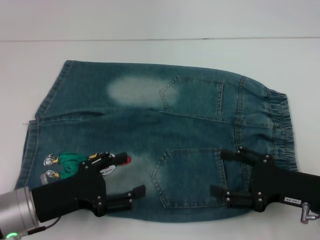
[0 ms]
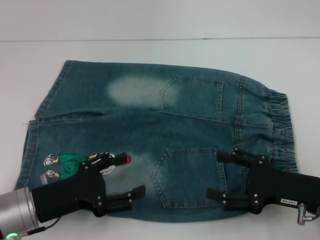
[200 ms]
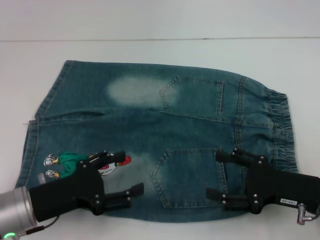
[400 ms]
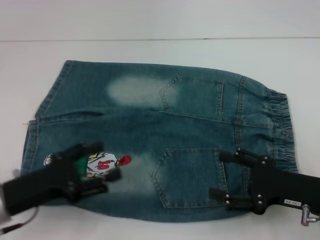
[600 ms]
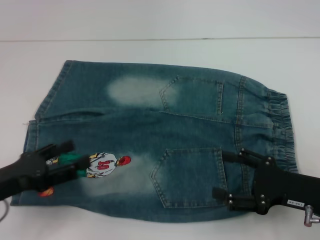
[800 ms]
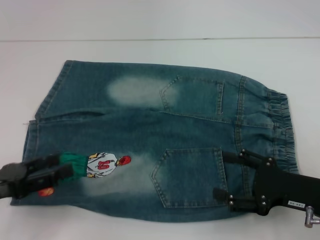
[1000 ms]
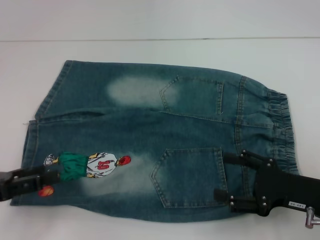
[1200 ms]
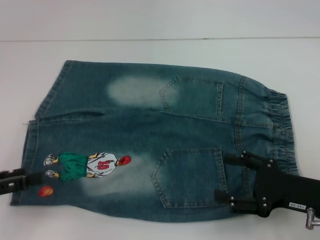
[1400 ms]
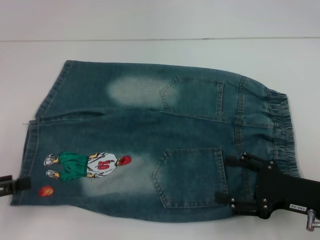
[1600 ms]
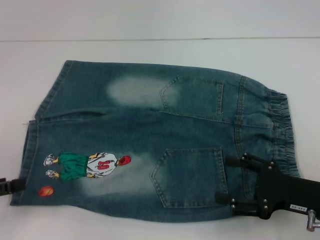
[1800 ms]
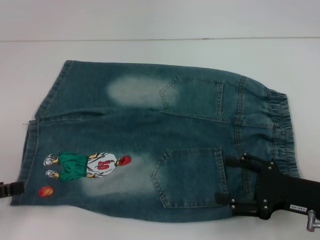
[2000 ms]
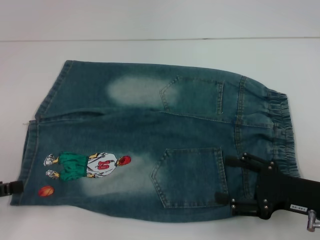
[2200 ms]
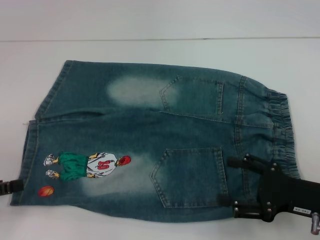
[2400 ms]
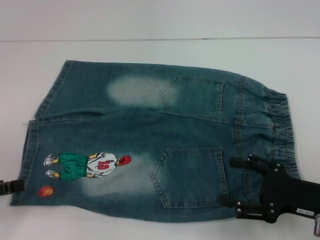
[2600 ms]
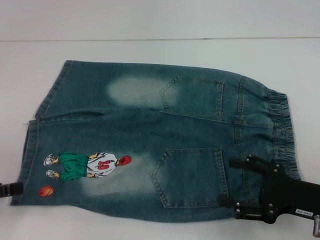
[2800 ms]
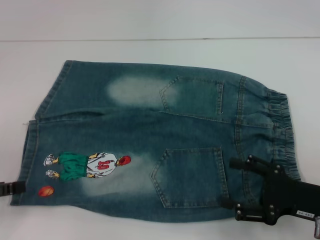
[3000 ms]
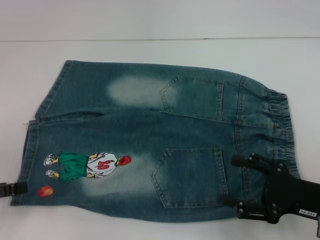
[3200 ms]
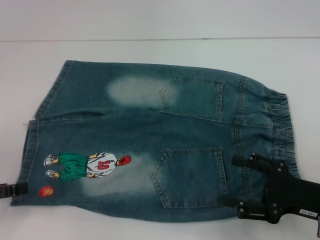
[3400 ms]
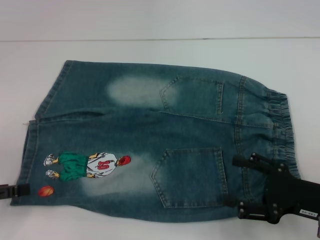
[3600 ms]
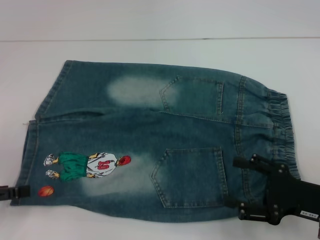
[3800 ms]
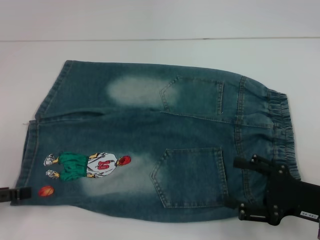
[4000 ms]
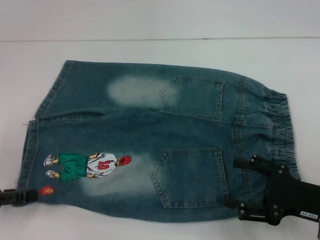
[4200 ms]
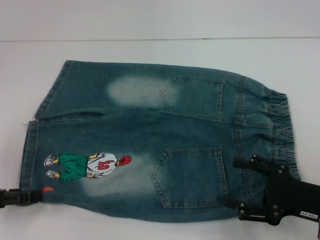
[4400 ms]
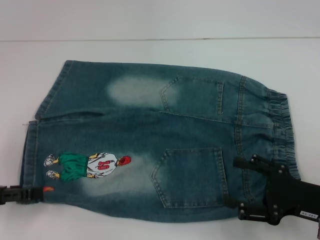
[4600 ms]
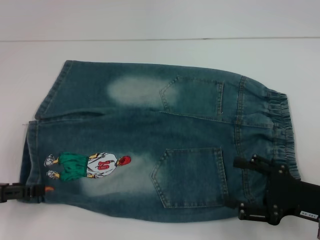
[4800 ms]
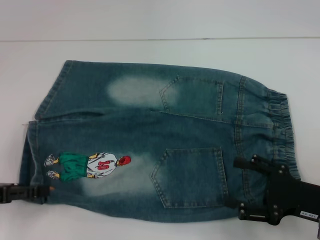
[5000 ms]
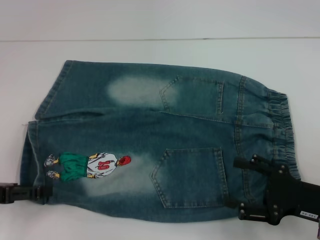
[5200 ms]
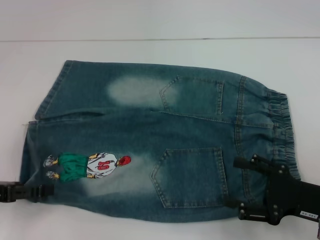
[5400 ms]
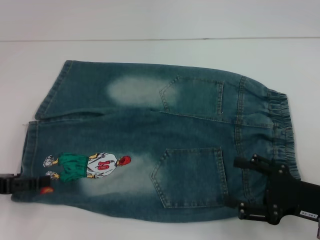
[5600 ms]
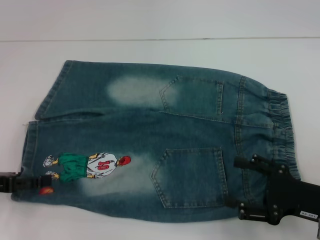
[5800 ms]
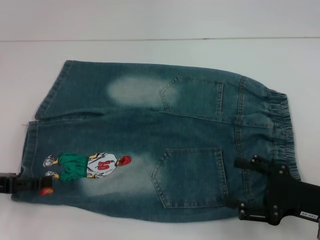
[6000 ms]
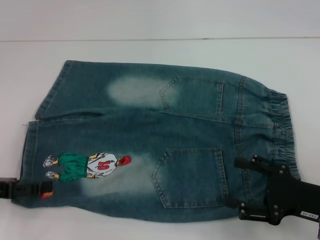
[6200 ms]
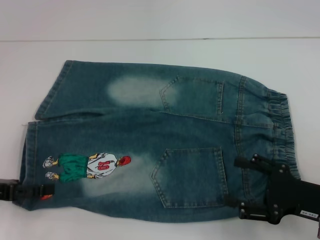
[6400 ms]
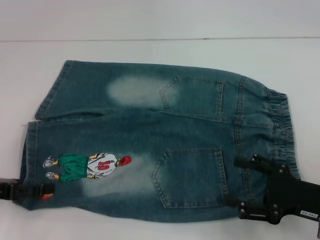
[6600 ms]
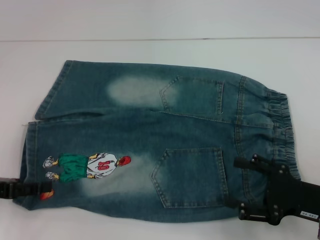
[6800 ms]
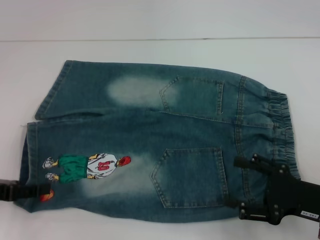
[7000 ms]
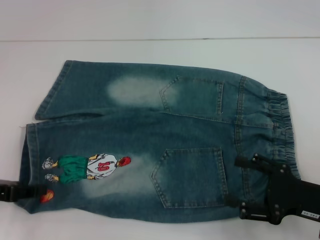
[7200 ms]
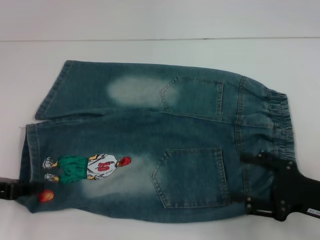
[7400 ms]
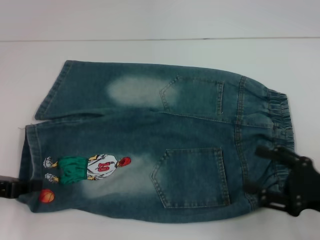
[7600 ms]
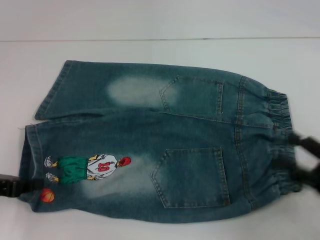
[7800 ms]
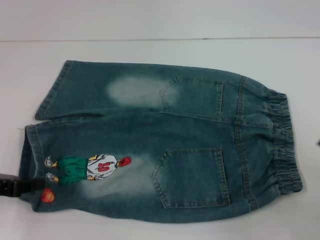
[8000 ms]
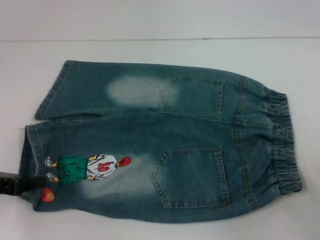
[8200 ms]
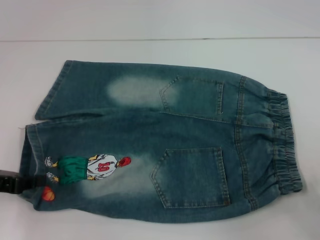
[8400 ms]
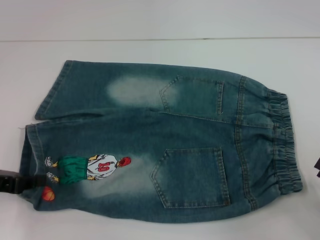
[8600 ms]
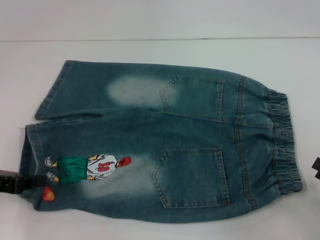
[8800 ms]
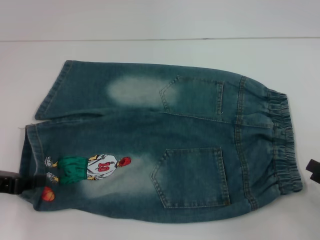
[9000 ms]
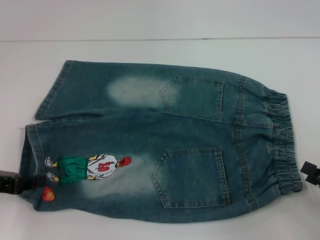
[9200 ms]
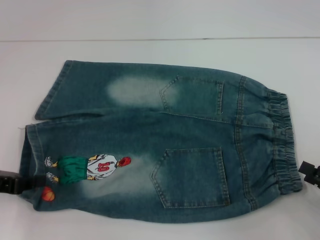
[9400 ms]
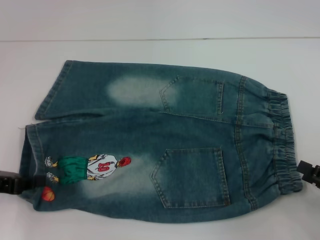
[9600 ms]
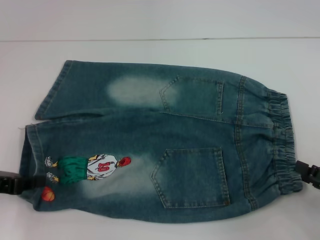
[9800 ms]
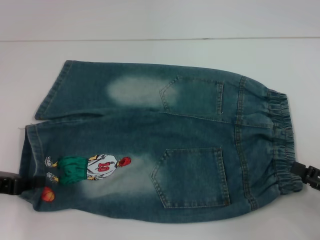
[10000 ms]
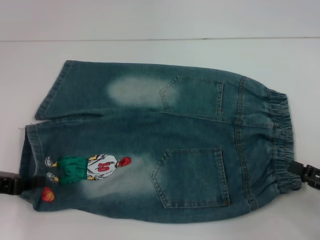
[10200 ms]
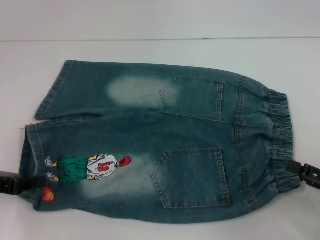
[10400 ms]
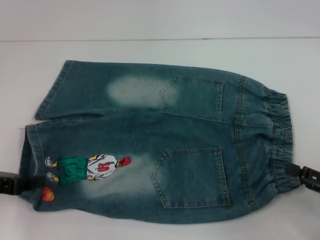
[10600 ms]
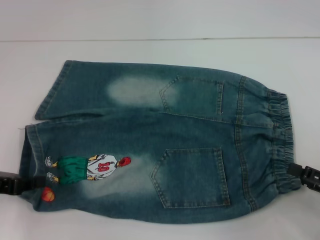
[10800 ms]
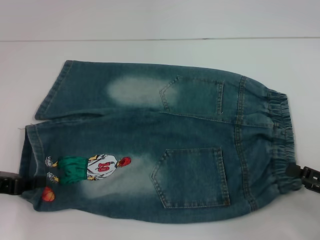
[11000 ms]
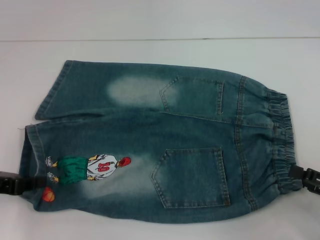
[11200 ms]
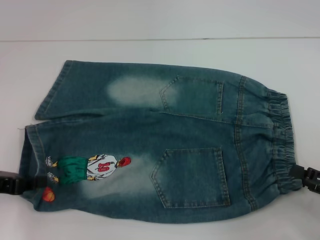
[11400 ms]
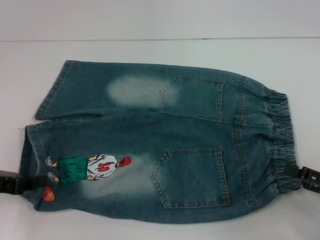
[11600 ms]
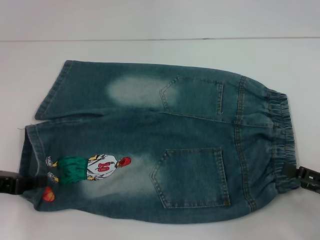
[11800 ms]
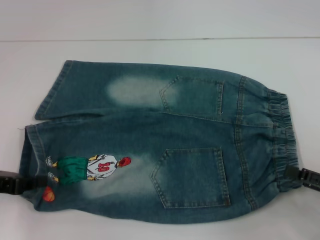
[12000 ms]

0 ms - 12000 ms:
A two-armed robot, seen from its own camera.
Step, 0 ms - 8000 ms: Grab the lower left pant leg with your left hand.
0 ms - 1600 ms: The left gripper goes approximately 15 cm to the left and upward.
1600 ms - 6000 ms: The grippers make only small movements.
6000 ms - 7600 ms: The left gripper closes its fingers.
7600 ms - 9000 ms: The right gripper is displaced to the right by some 10 cm.
9000 ms - 10400 ms: The grippers stay close to where they were, moving slightly.
10400 ms - 12000 ms: Both grippers stay put.

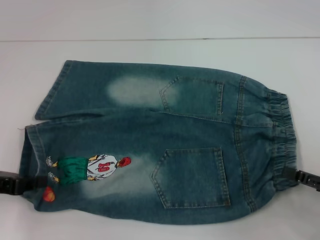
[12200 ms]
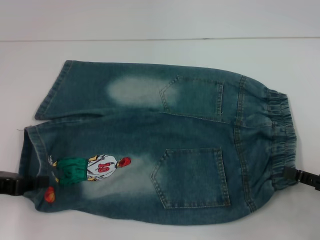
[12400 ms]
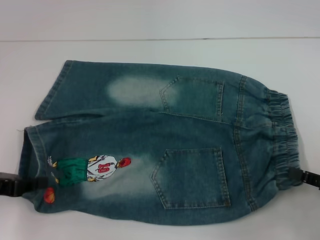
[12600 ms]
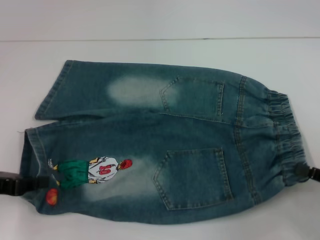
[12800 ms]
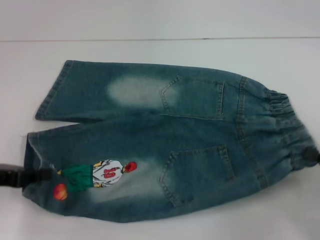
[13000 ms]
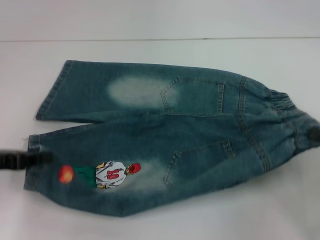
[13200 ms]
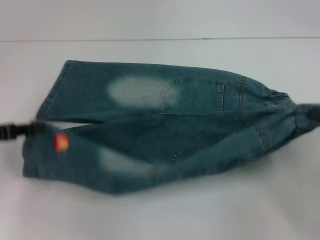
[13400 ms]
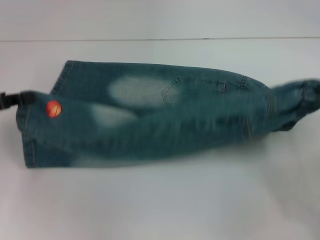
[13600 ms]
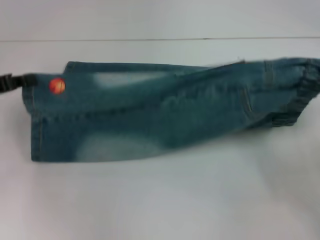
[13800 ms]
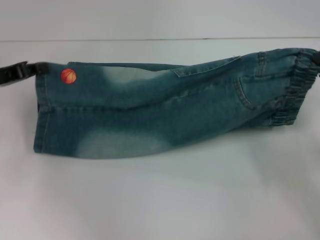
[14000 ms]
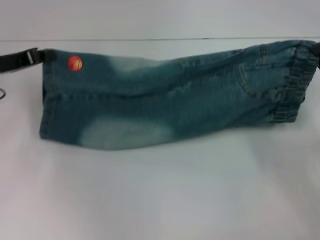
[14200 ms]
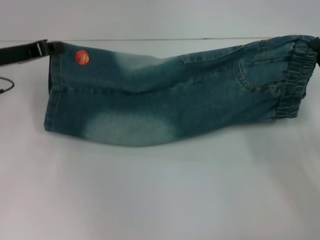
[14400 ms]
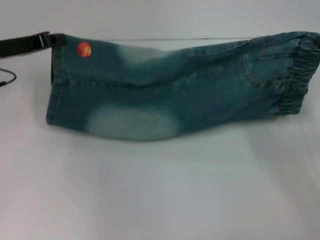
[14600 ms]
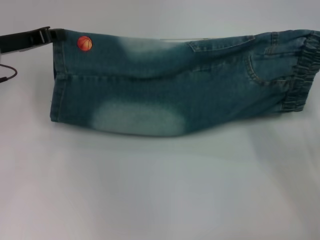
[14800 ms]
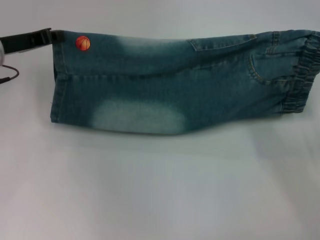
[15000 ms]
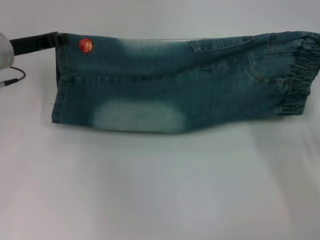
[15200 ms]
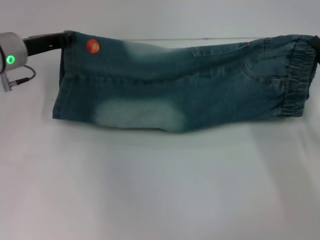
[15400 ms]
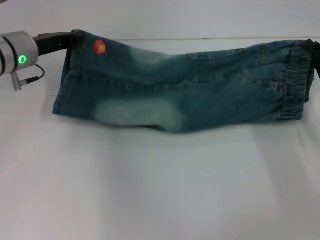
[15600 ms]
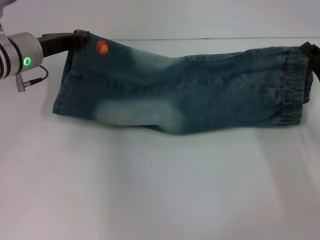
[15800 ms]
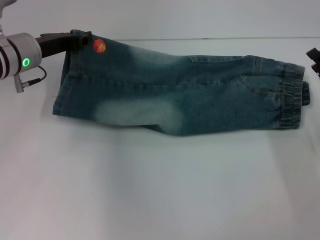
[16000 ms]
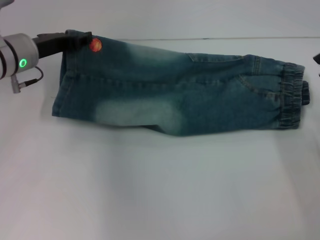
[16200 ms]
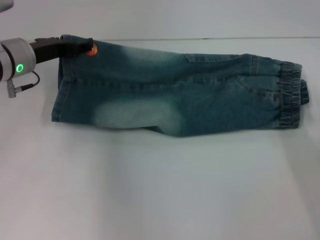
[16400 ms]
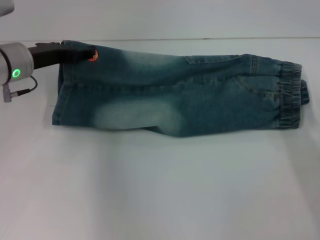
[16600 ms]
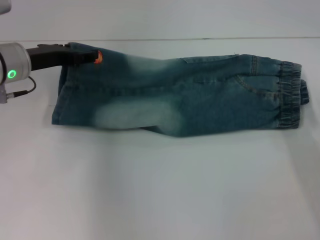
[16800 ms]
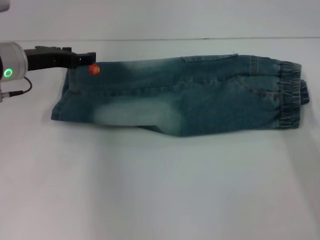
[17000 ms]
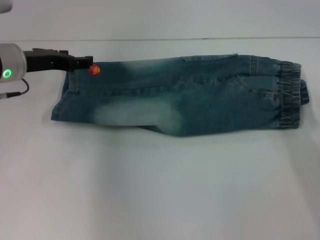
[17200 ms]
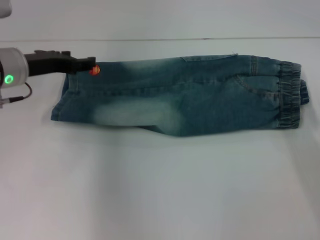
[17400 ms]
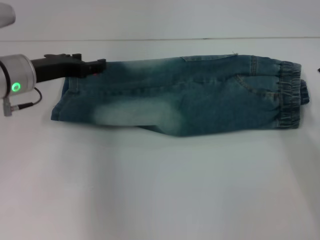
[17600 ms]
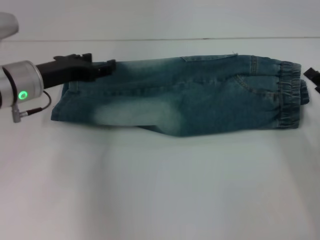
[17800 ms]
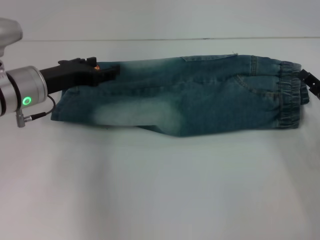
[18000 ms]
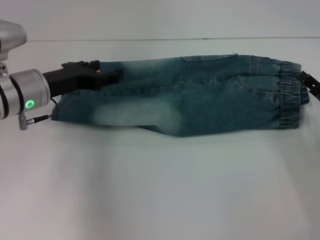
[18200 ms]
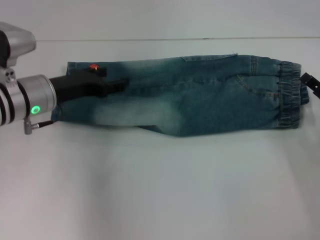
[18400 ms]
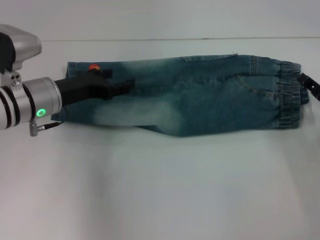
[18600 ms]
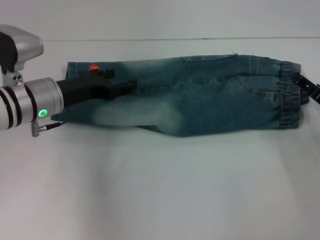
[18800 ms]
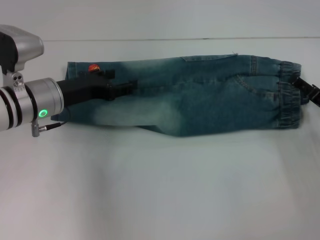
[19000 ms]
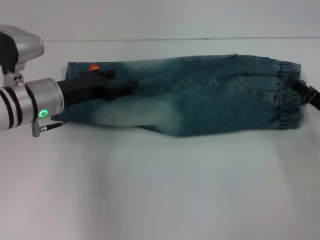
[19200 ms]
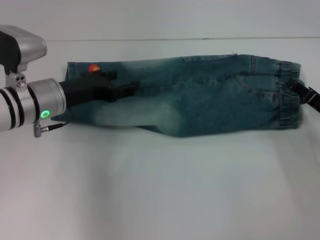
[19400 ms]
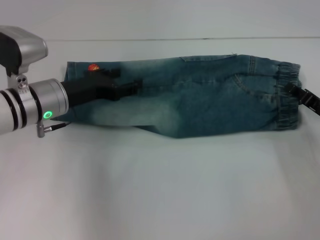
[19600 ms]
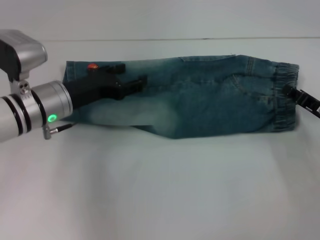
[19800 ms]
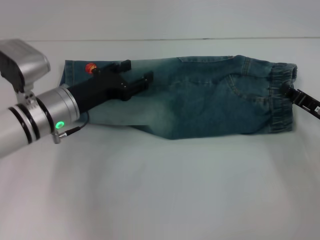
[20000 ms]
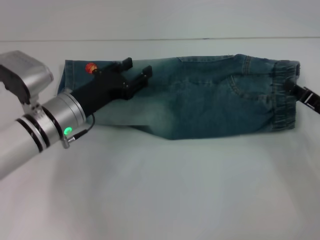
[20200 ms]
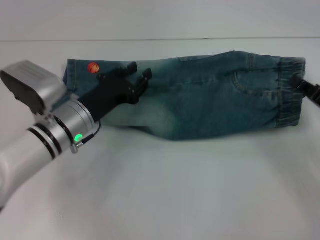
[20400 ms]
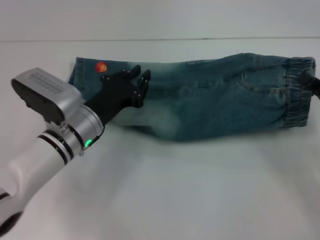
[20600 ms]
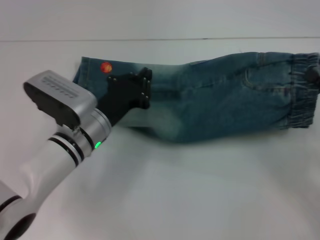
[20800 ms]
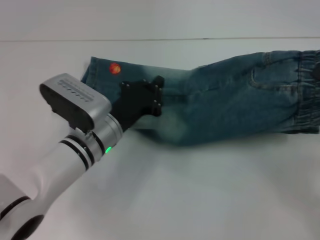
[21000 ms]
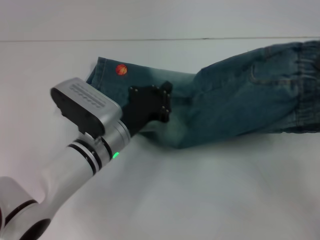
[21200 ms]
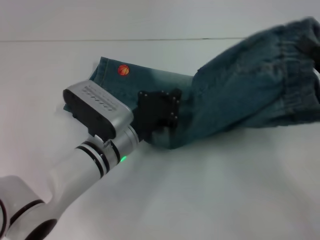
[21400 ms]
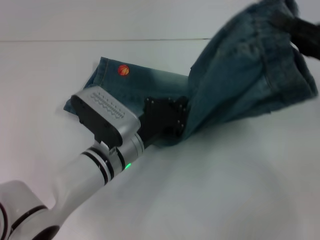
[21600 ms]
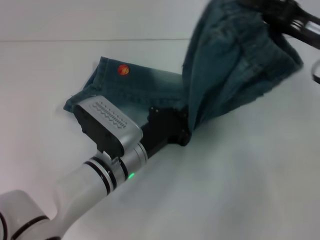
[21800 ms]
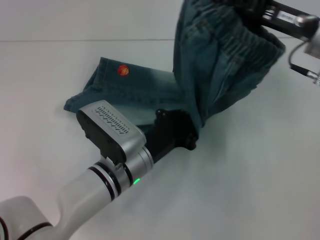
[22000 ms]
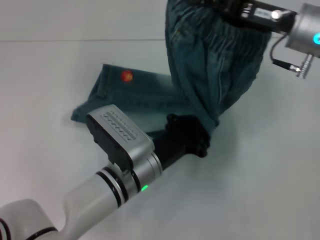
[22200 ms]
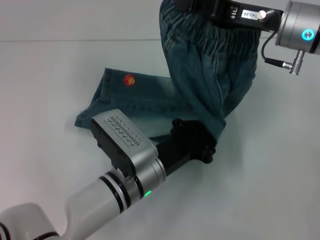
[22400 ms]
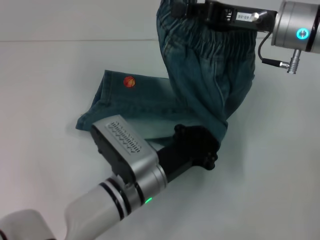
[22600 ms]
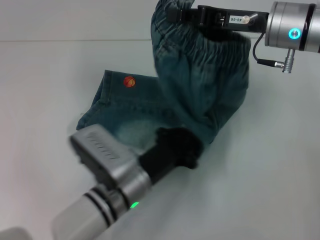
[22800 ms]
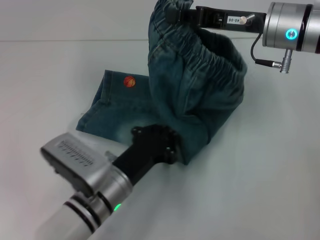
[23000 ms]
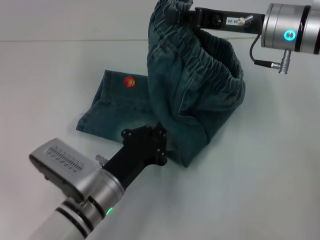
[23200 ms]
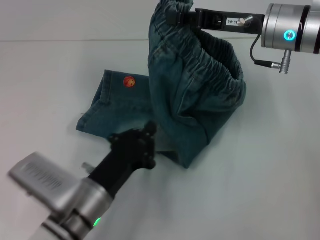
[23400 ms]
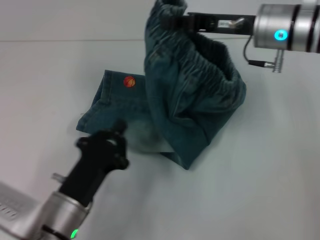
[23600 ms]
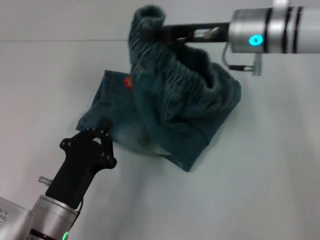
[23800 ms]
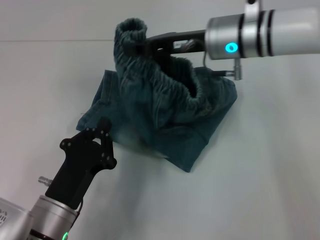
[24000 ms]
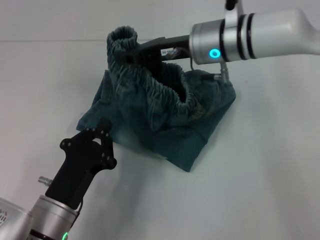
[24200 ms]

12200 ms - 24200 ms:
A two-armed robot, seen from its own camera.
Step, 12400 ms - 15800 ms: Fold upward with your right hand.
Step, 16200 ms - 16800 ms: Fold upward with your left hand.
Step, 17000 ms - 19600 ms: Grab the waistband with your right hand.
Step, 19800 ms - 22600 ms: Press the middle of the pants with your left hand.
12200 ms - 13800 ms: Both grippers travel together forward, some 5 cm. The right gripper closes its fingers.
13800 ms - 15200 ms: The left gripper moves forward and to the right, roughly 10 cm; the right gripper goes roughly 5 cm forward.
15200 ms - 16600 ms: The right gripper changes place by roughly 5 cm, and opens its fingers. Meanwhile the left gripper opens.
16600 ms - 18200 ms: The left gripper changes place by roughly 5 cm.
18200 ms - 19800 ms: The right gripper closes.
19800 ms - 21200 ms: The left gripper moves to the right and downward, approximately 10 cm, and closes up, while the right gripper heads upward and backward, covering about 10 cm.
21200 ms - 22600 ms: The right gripper moves to the left, forward and upward, about 25 cm; the left gripper moves backward, approximately 5 cm.
22600 ms - 24200 ms: The right gripper heads to the left, covering some 10 cm, while the left gripper travels to the left and backward by approximately 15 cm.
